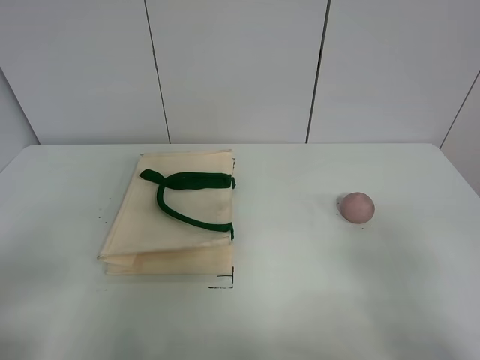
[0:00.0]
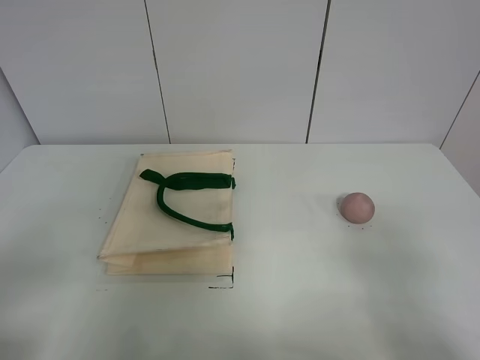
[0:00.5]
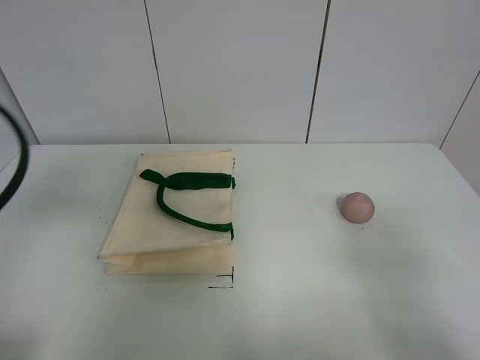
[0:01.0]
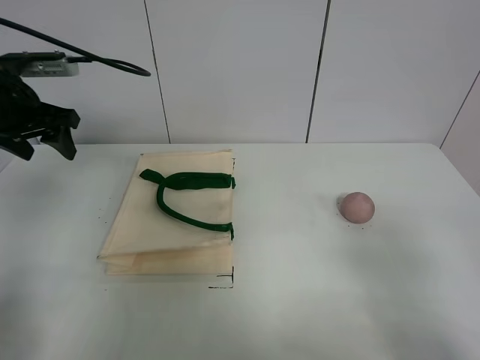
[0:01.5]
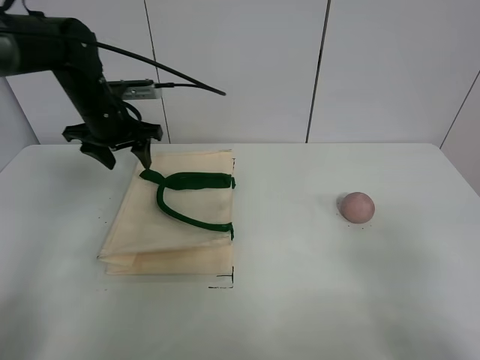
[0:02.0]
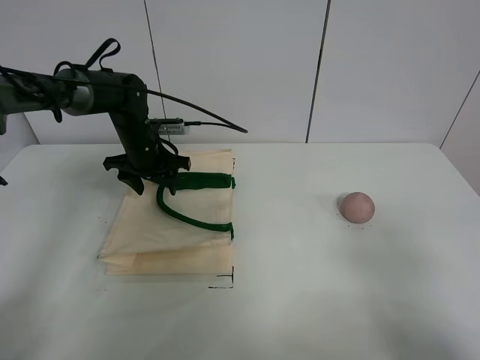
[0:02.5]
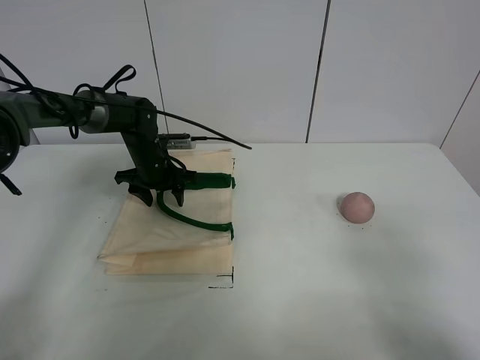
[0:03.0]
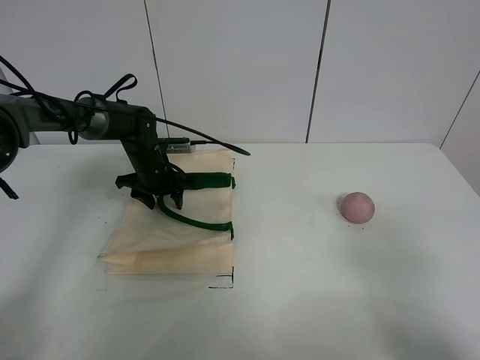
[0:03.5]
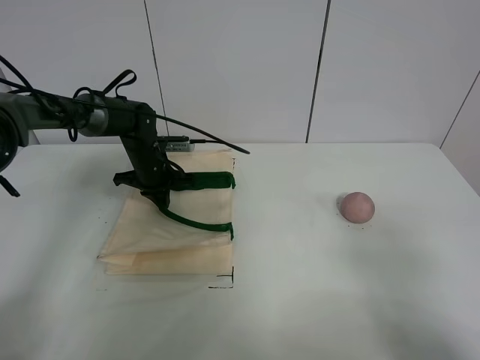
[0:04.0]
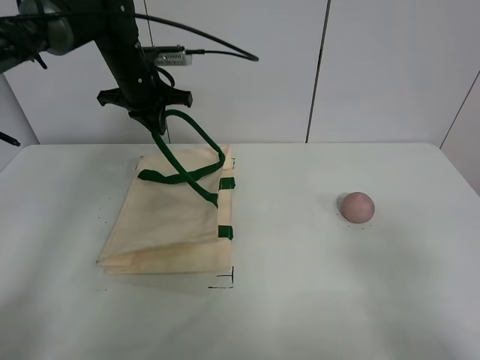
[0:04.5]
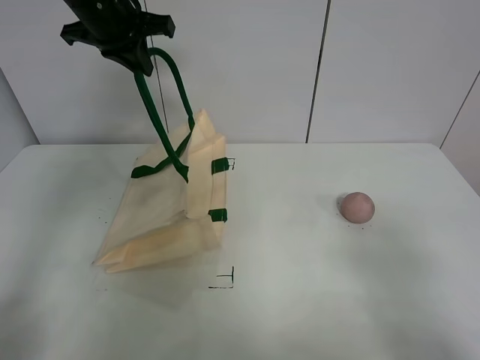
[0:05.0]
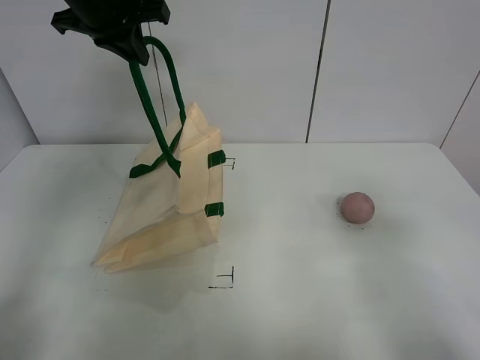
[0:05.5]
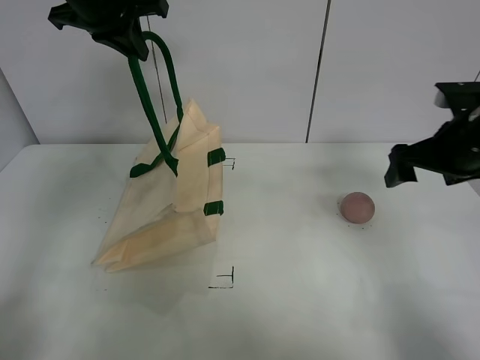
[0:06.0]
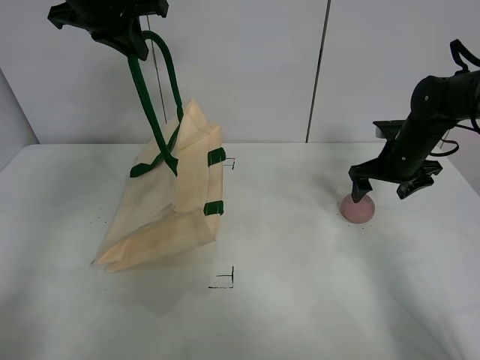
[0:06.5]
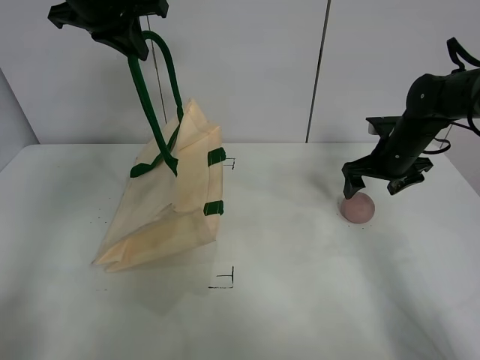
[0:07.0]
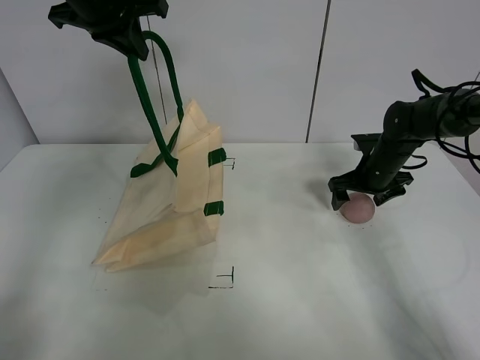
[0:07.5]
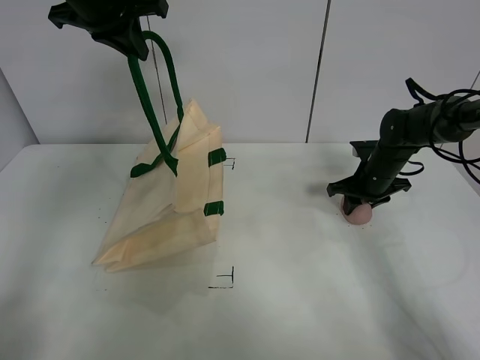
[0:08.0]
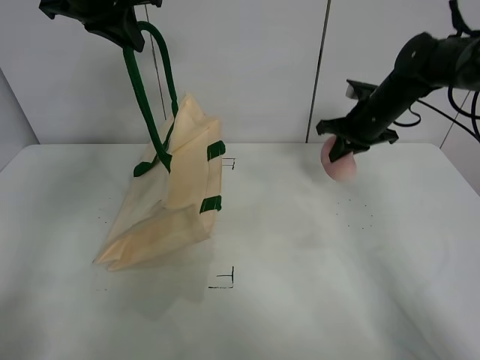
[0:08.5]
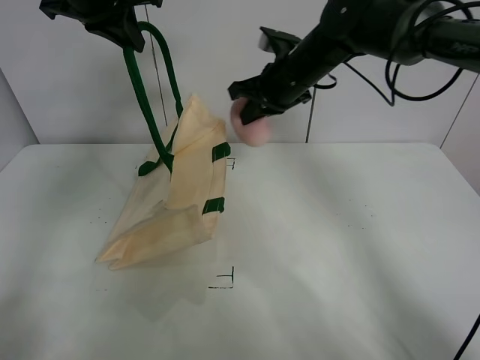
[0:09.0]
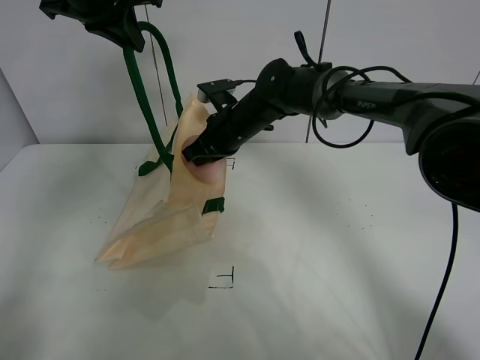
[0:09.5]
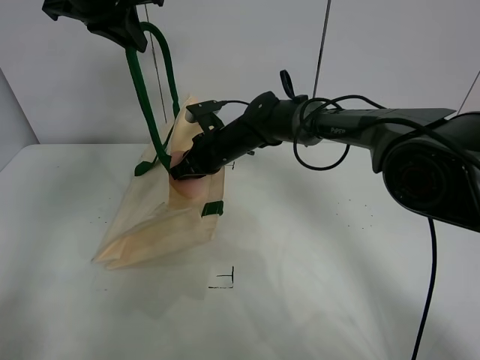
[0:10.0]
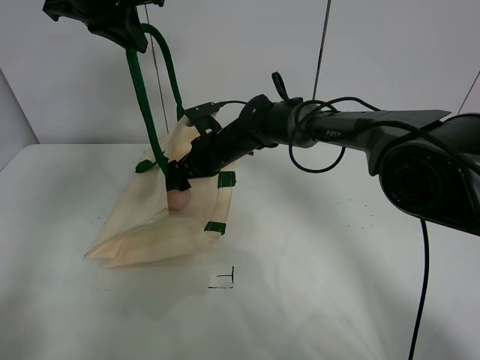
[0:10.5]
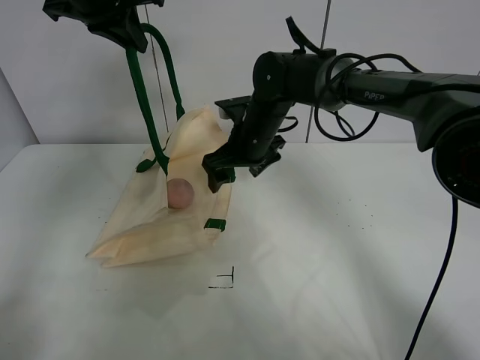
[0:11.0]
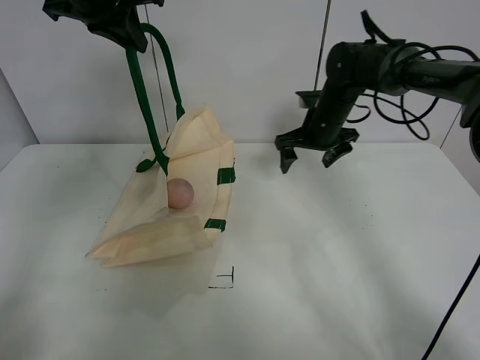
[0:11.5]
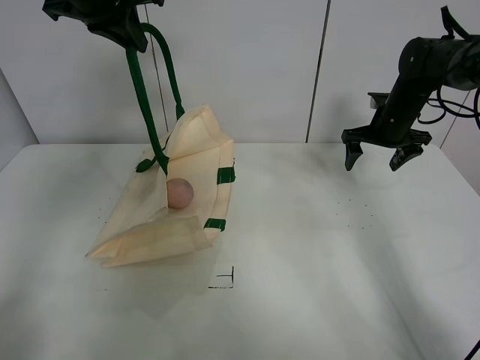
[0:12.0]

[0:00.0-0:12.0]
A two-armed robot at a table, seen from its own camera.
Task of the whole recording: open the white linen bag and put the peach in the bag.
Step, 0:00.0 to 0:05.0: Lift the handbag with left gripper.
Step, 0:05.5 to 0:08.0: Grasp the peach with right gripper.
Step, 0:08.5 to 0:10.5: Place the peach in the handbag with right gripper.
0:00.0 to 0:02.0: The left gripper is displaced forward by about 40 cm.
0:02.0 to 0:04.0: The left gripper goes some 15 cm downward, and closes.
0:04.0 to 0:06.0: The left gripper moves upward, approximately 30 cm, while the right gripper is displaced forward by about 30 cm.
0:06.0 to 0:08.0: The right gripper travels downward and forward by about 15 cm, and closes up.
0:08.0 to 0:10.0: The right gripper travels to the left by about 30 cm.
0:10.0 to 0:12.0: The right gripper travels to the right by about 30 cm, and opens its fingers.

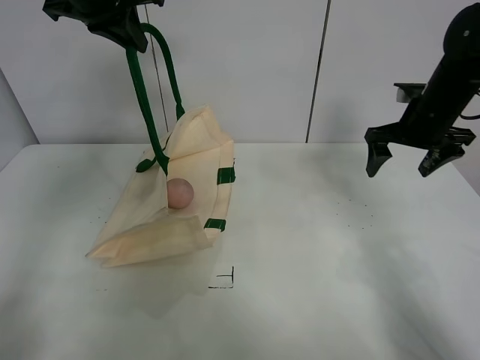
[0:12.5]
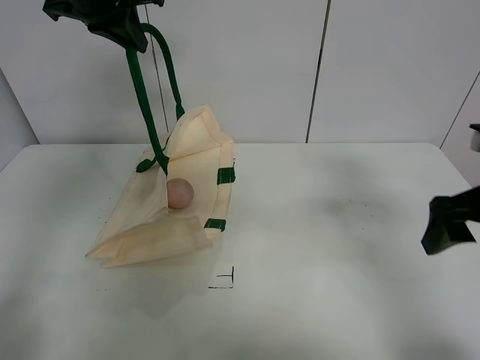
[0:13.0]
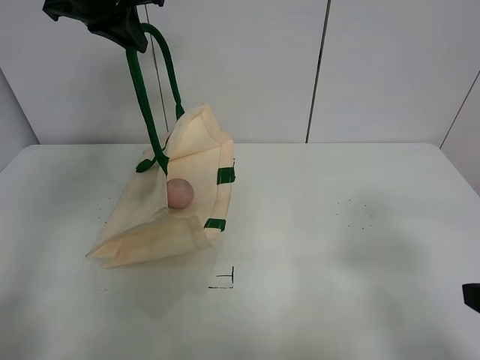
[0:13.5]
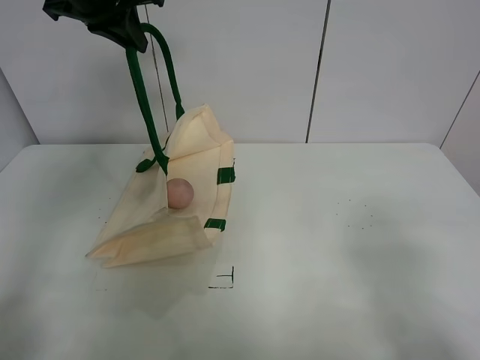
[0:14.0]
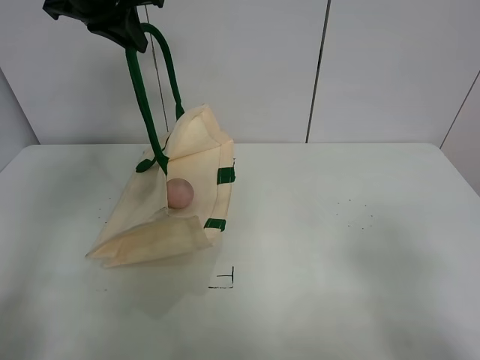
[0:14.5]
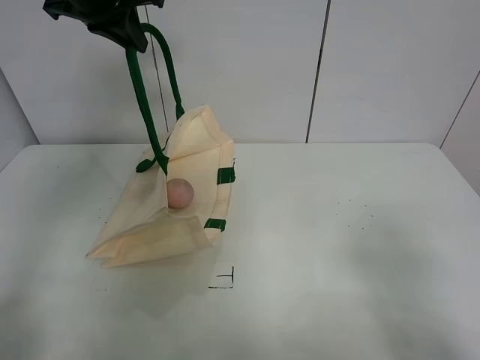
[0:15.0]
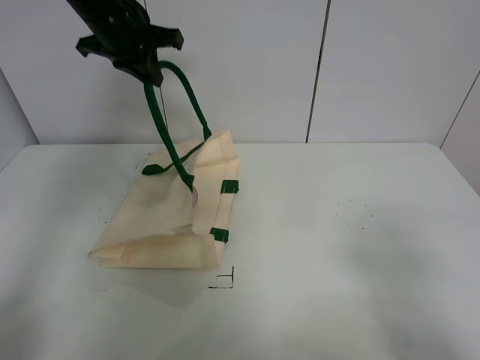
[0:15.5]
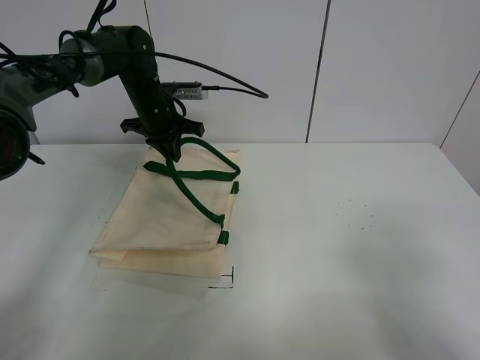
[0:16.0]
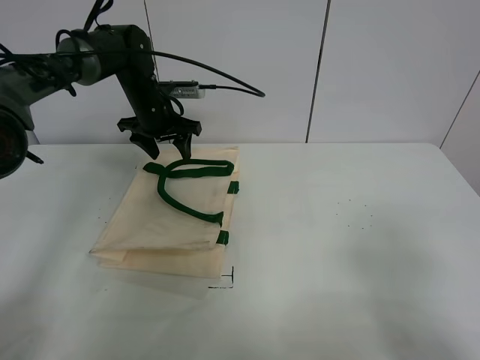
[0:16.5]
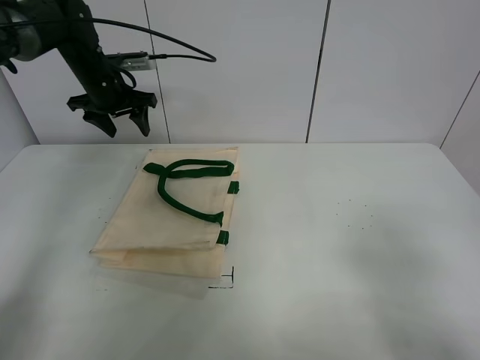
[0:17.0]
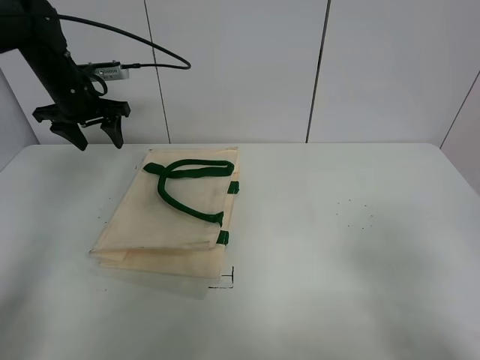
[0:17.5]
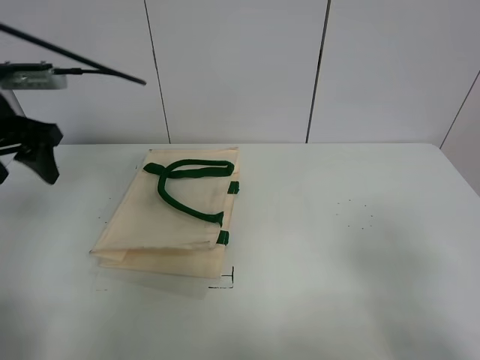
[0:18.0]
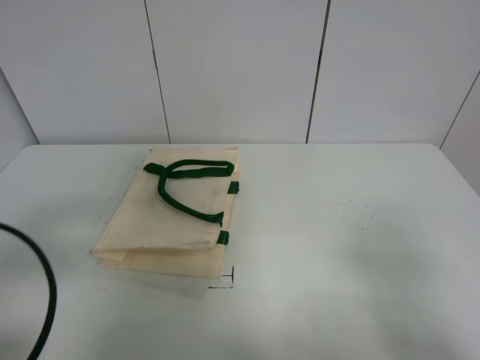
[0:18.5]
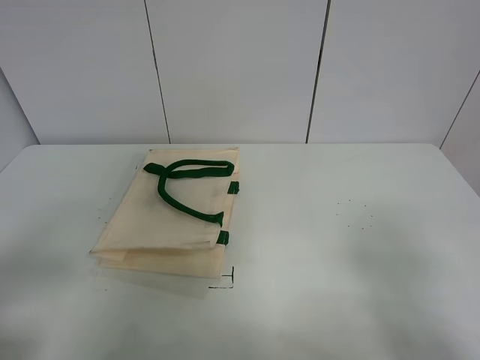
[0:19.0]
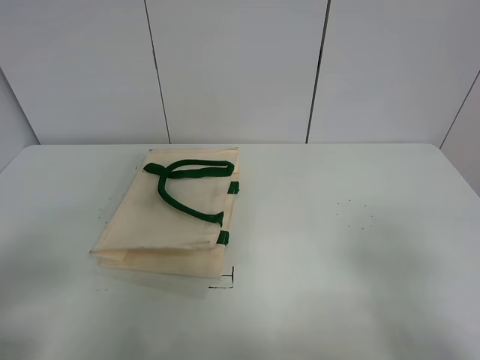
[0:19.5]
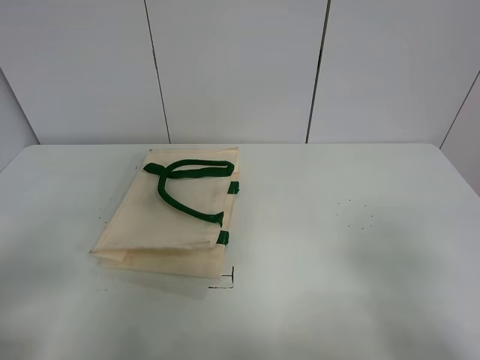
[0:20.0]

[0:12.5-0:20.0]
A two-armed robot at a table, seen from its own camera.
Task of the whole recording: open the white linen bag and put the peach in the bag.
Step, 0:12.5 to 0:17.0: Put down the handbag with left gripper.
0:12.5 to 0:14.5: The right gripper is displaced backward by about 35 cm.
0:14.5 to 0:16.5: The left gripper travels downward and forward by some 20 cm, and opens.
0:16.5 to 0:18.0: The left gripper moves backward, to the left and upward, approximately 25 cm.
0:18.0 to 0:20.0: The left gripper heads backward, covering roughly 30 cm.

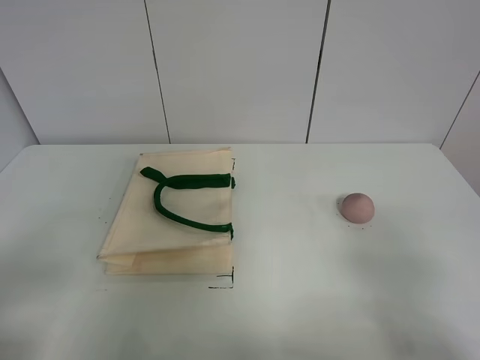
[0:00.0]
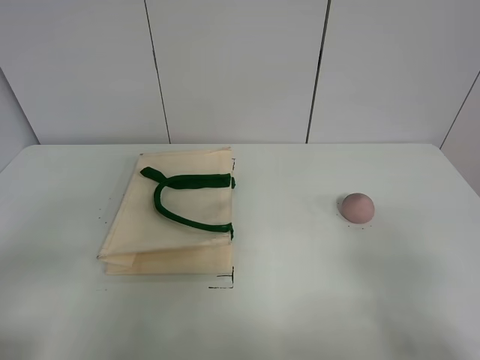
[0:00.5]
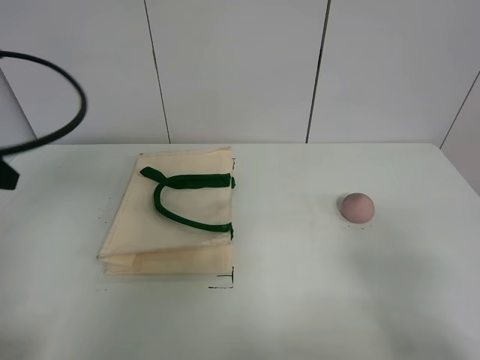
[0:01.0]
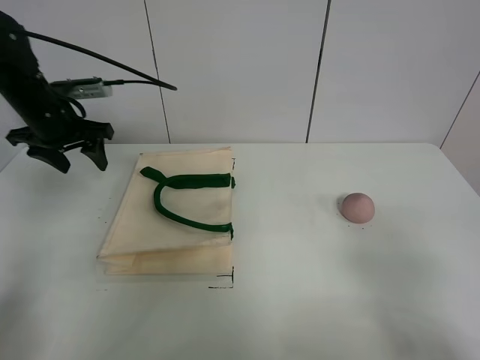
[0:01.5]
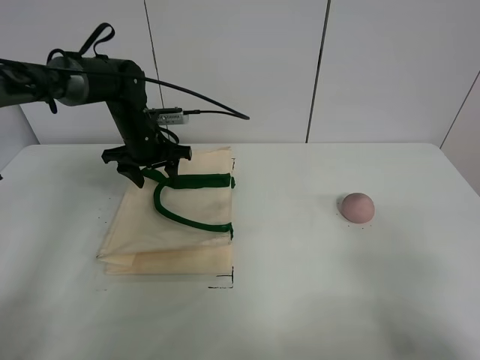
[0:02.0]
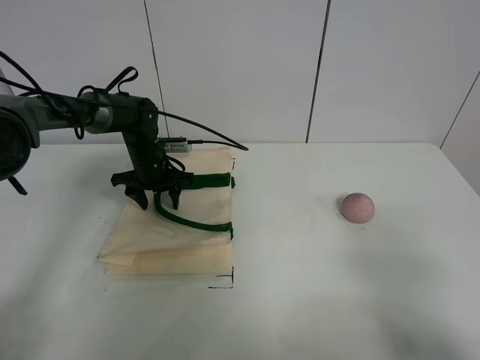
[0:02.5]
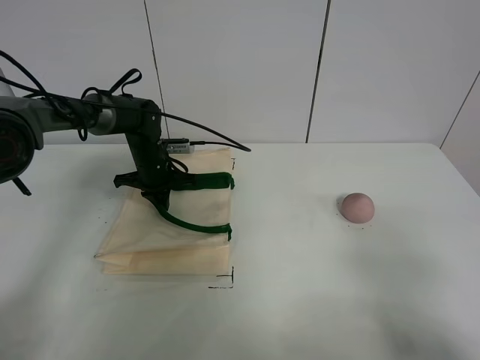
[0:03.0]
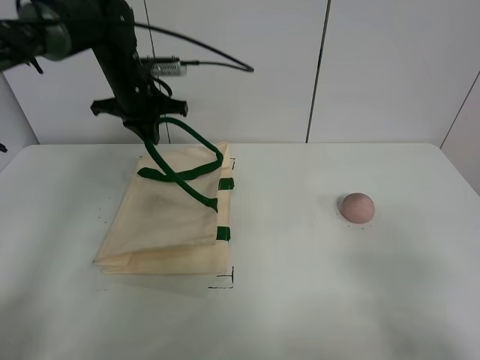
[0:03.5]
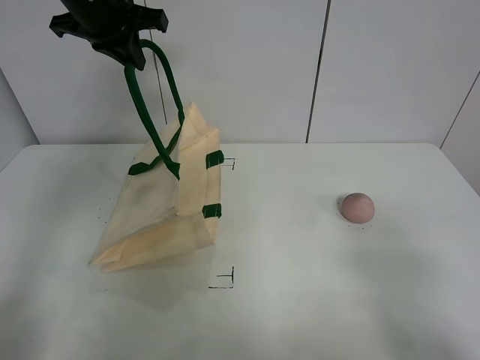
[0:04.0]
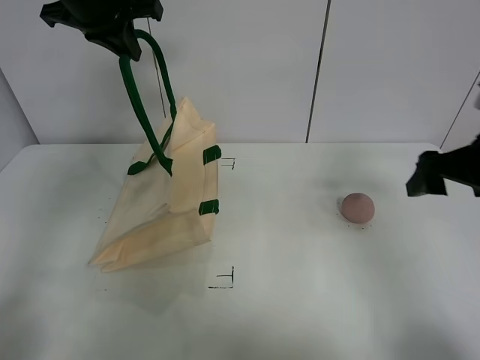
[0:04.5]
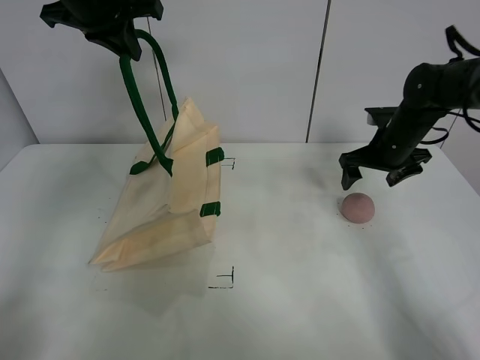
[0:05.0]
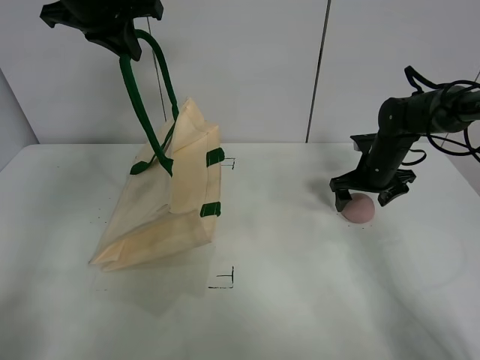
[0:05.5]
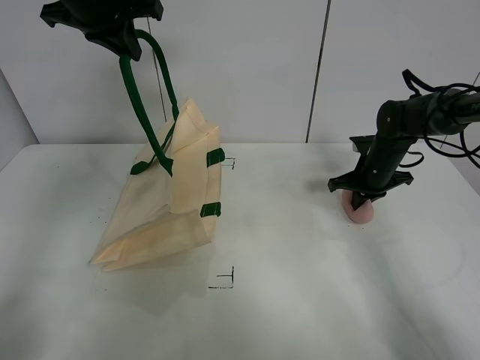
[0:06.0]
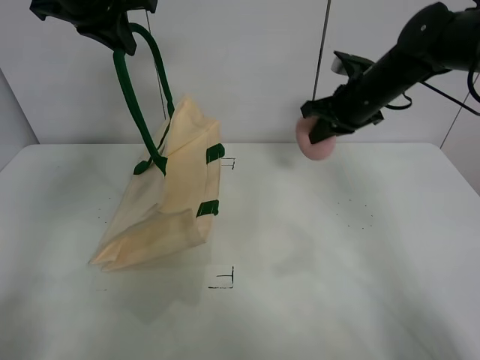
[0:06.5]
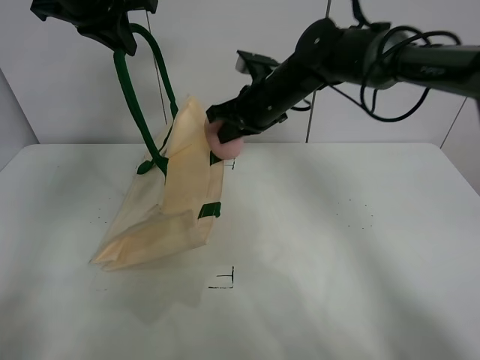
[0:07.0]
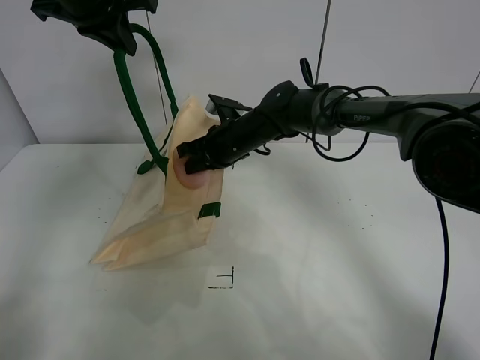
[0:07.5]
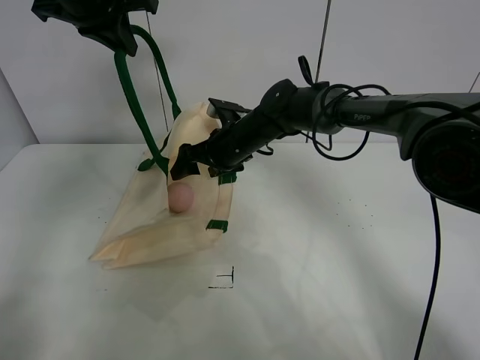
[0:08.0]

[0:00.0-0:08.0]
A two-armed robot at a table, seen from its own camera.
Task of the whole recording: open the white linen bag and put the peach in the bag.
Step, 0:00.0 to 0:04.0: Lift the handbag with left gripper.
Step, 0:04.5 to 0:06.0: Grasp the peach with right gripper.
Step, 0:06.5 to 0:08.0: Place the peach in the handbag with right gripper.
0:00.0 to 0:02.0: The left gripper heads forward, covering approximately 40 cm.
0:02.0 to 0:04.0: The left gripper heads upward, covering about 20 cm, and closes its fingers.
0:04.0 to 0:06.0: The right gripper moves forward, approximately 40 cm, and closes its fingers.
0:06.0 to 0:08.0: The right gripper heads to the left, covering approximately 25 cm, and opens.
